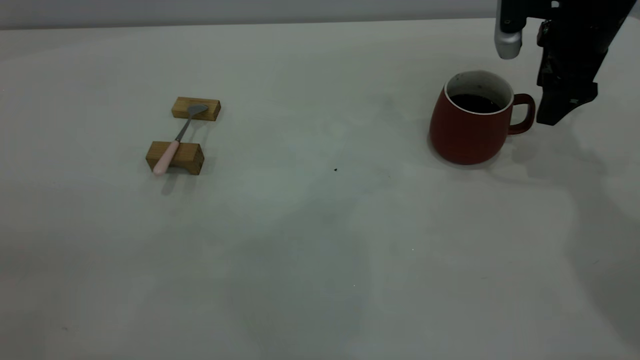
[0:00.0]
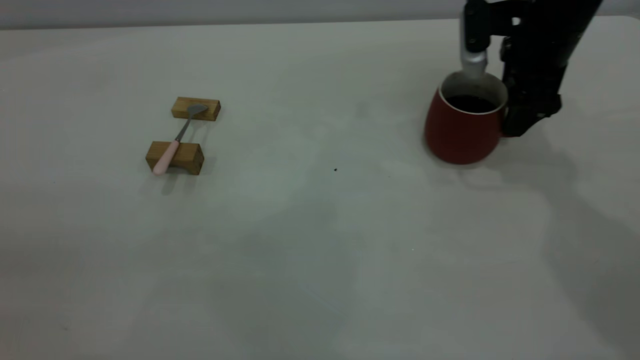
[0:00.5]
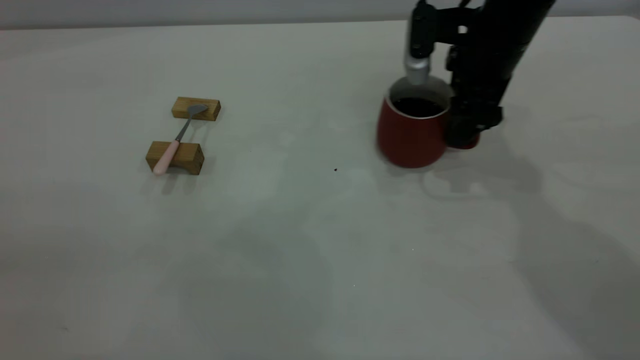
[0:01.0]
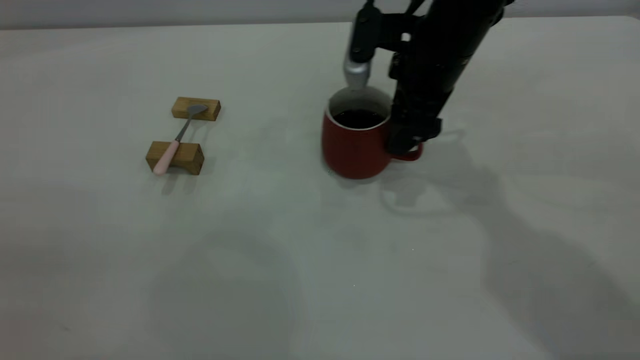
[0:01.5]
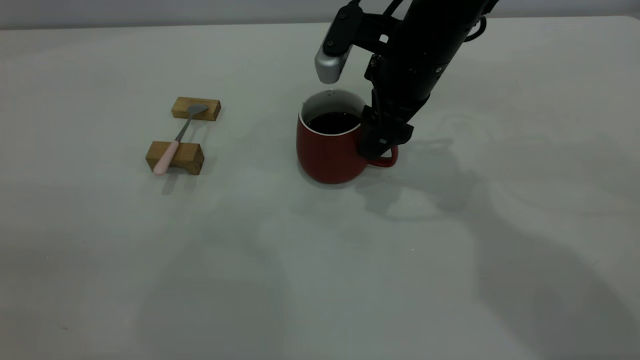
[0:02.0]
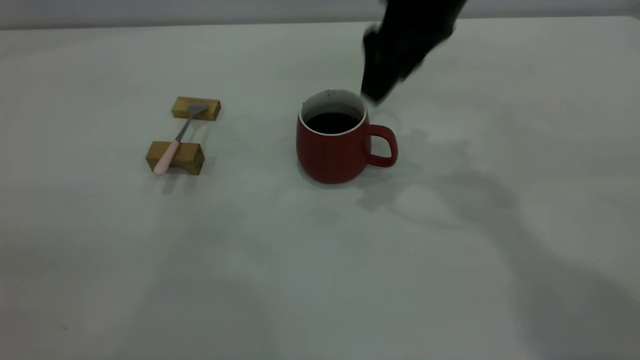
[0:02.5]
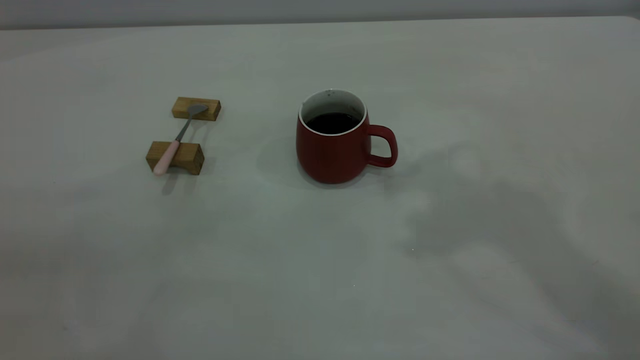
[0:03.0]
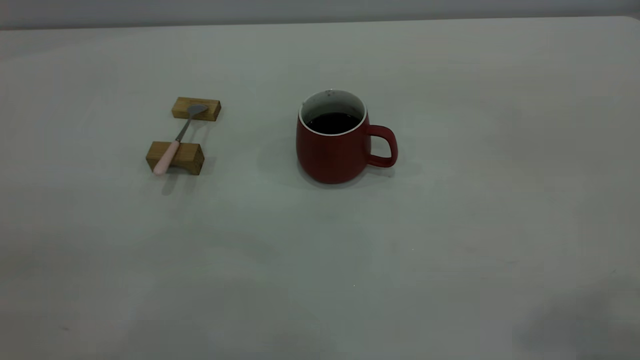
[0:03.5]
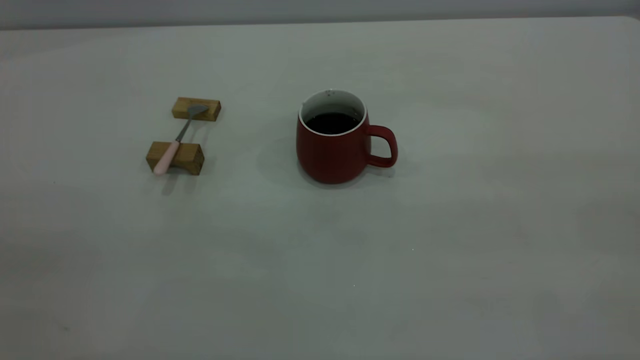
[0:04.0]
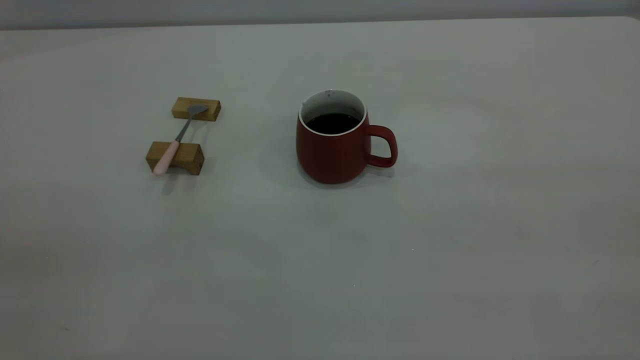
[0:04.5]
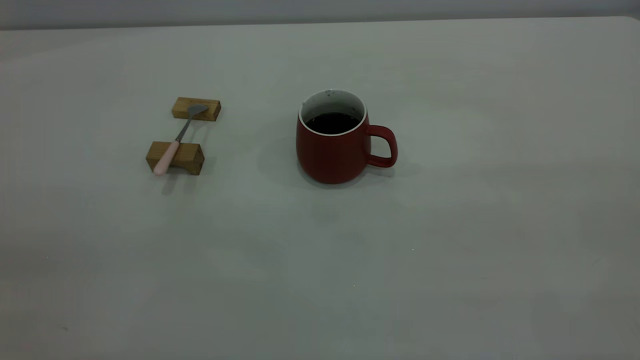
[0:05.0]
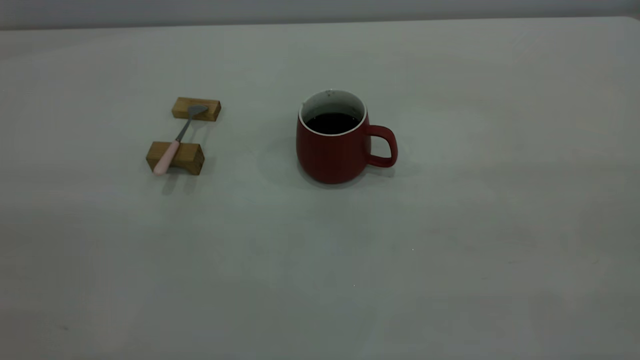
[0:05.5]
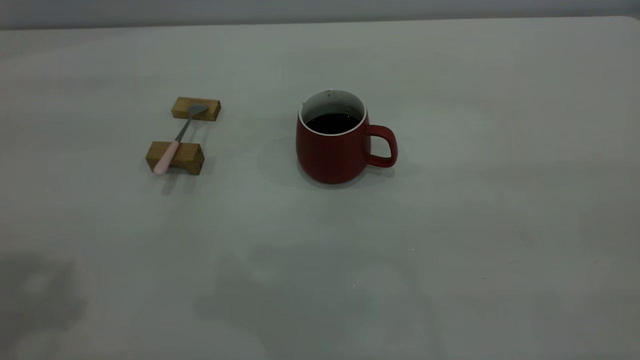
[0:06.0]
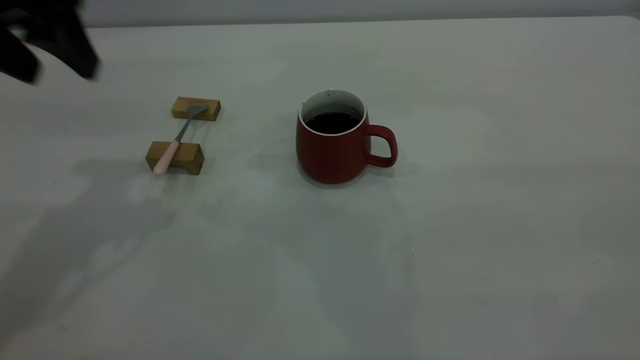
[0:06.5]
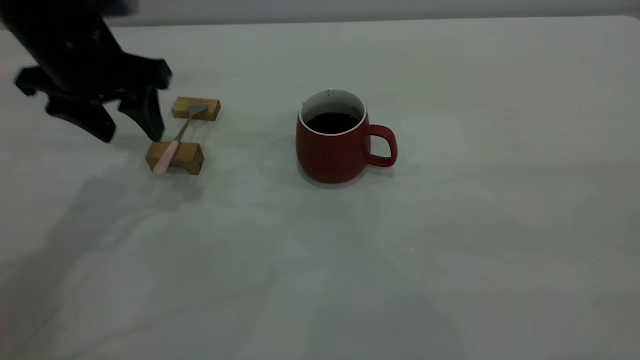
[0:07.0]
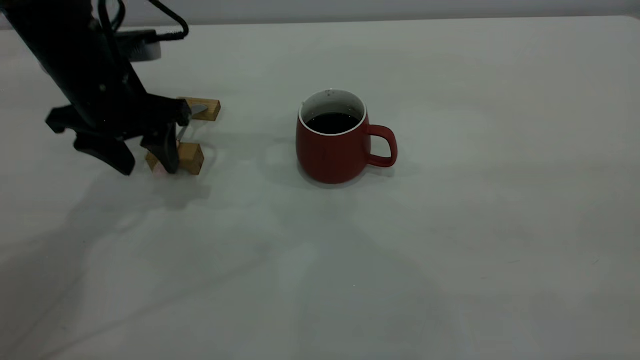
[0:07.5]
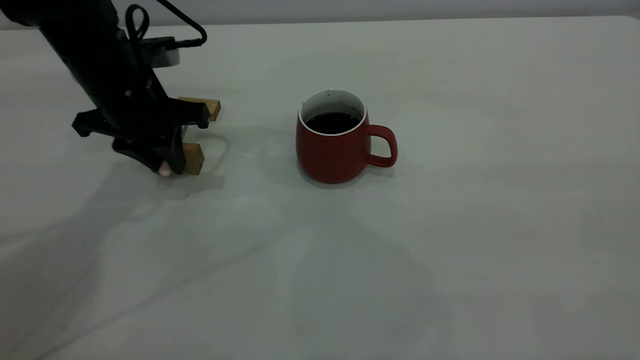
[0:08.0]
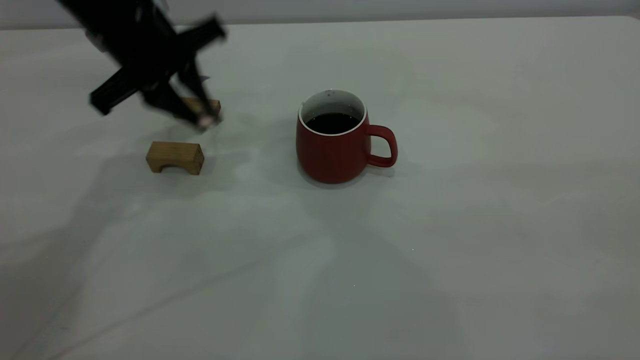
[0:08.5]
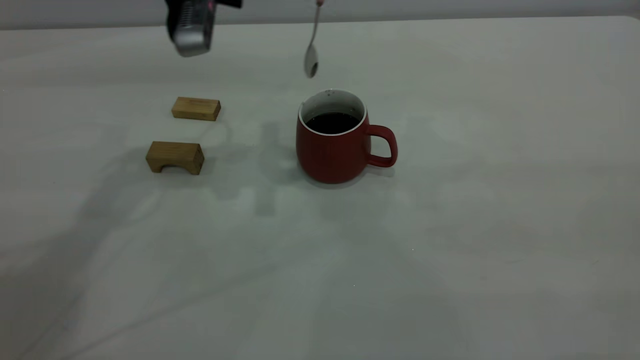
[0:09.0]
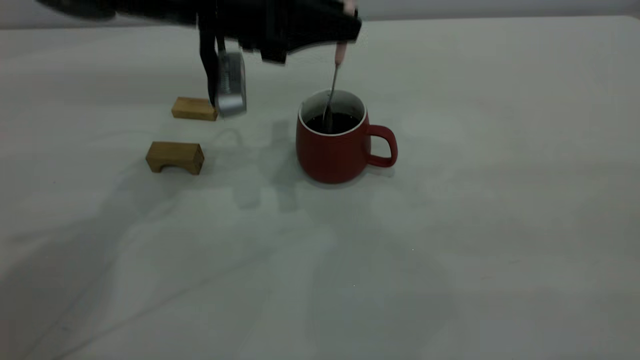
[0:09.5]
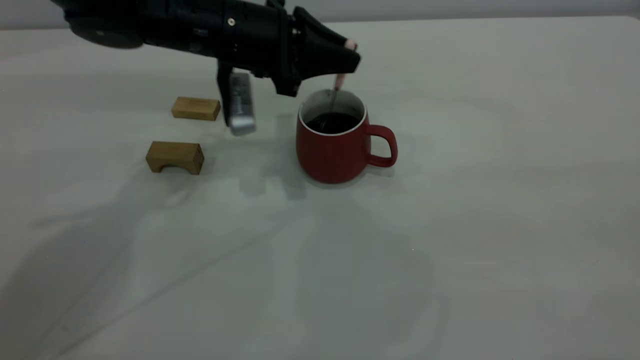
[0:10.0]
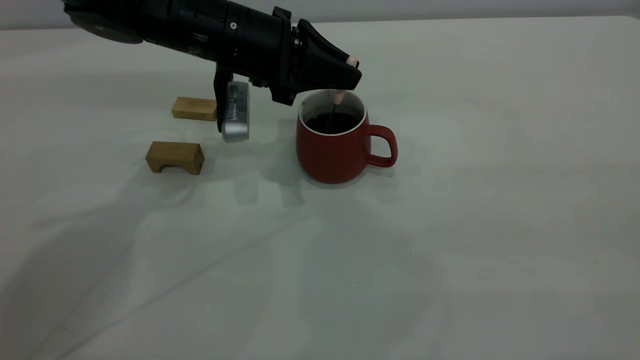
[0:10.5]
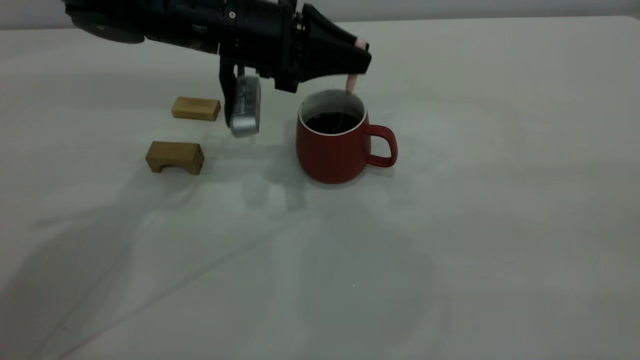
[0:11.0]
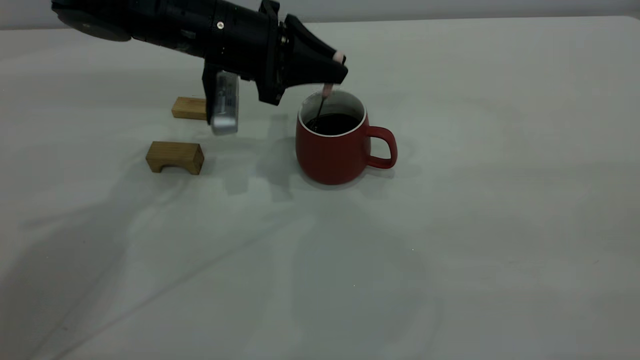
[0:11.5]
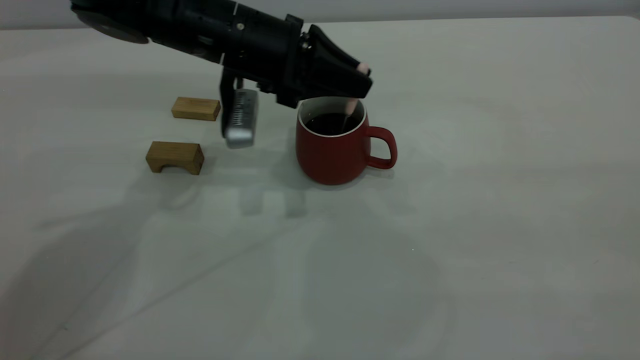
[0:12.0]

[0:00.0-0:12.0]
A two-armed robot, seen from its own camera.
Step, 0:00.0 to 0:02.0: Move the cup with coffee to the center of view.
Step, 0:02.5 to 0:08.0: Pick up the spoon.
0:00.0 to 0:02.0: The right gripper heads to the left, covering about 15 cm.
0:02.0 to 0:04.0: The right gripper heads backward, upward and to the right, covering some 50 cm.
0:06.0 to 0:08.0: The left gripper travels downward and forward by some 30 cm, and closes up.
0:08.0 to 0:10.0: The left gripper moves to the right, roughly 10 cm, and moves approximately 15 cm upward and comes back.
0:10.0 to 0:12.0: The grippers move only a little.

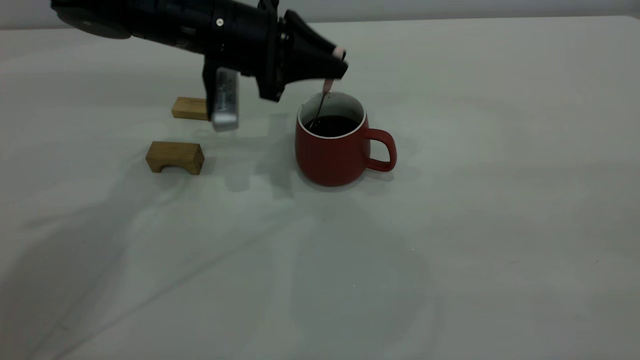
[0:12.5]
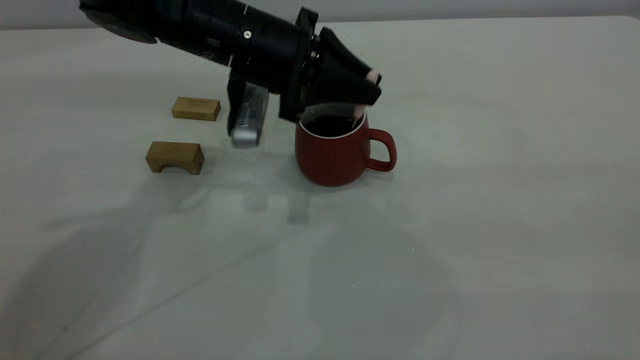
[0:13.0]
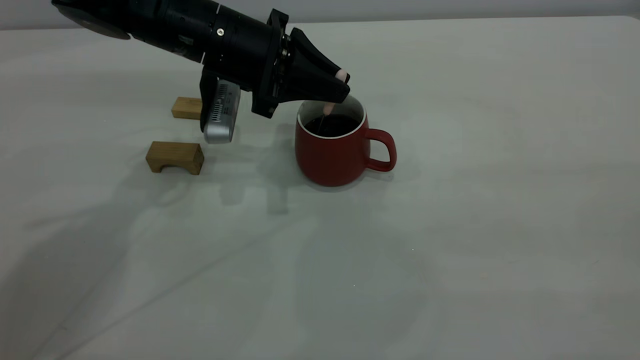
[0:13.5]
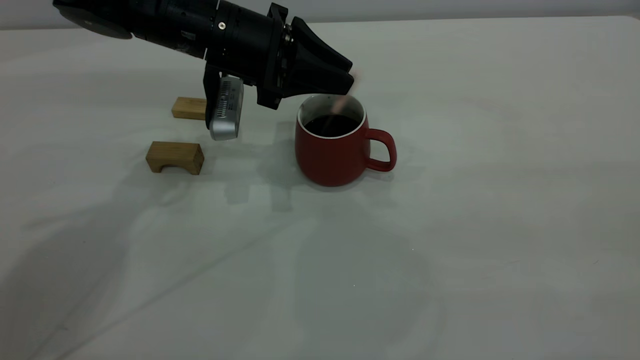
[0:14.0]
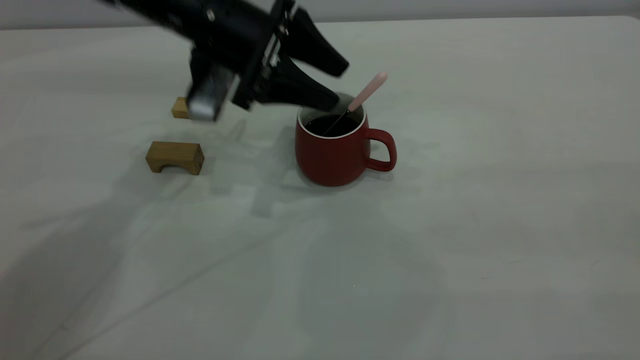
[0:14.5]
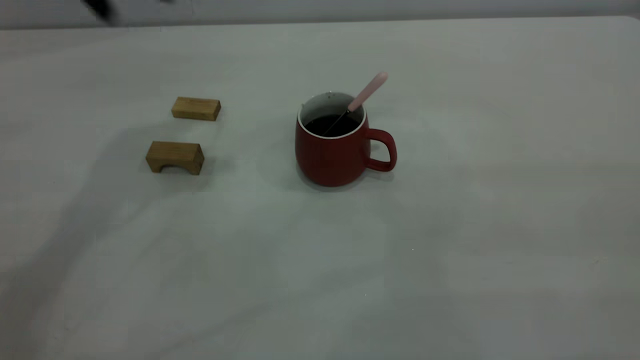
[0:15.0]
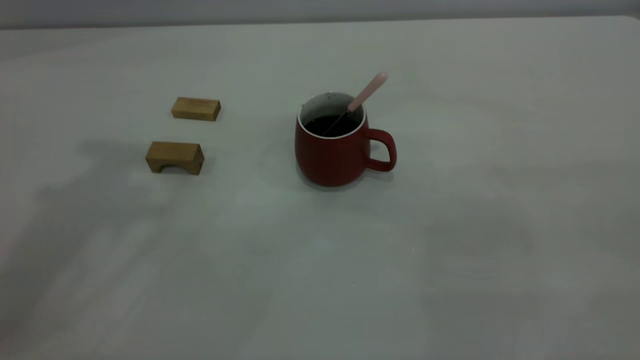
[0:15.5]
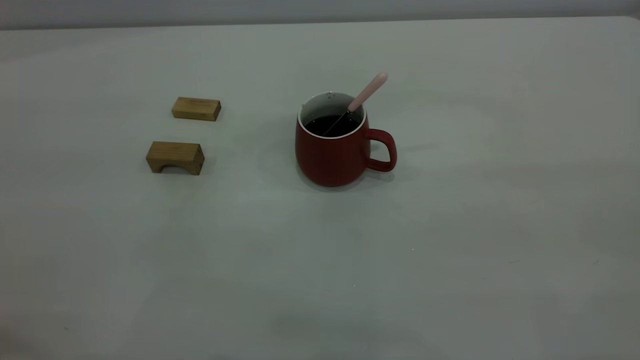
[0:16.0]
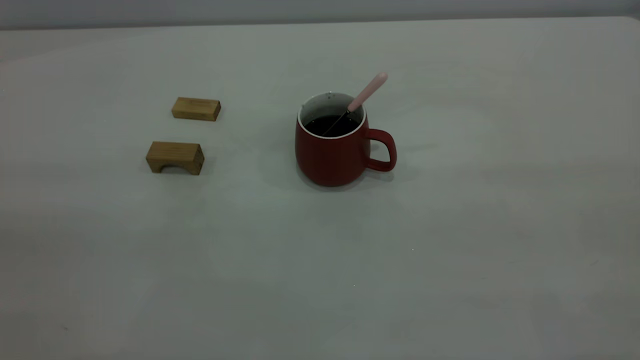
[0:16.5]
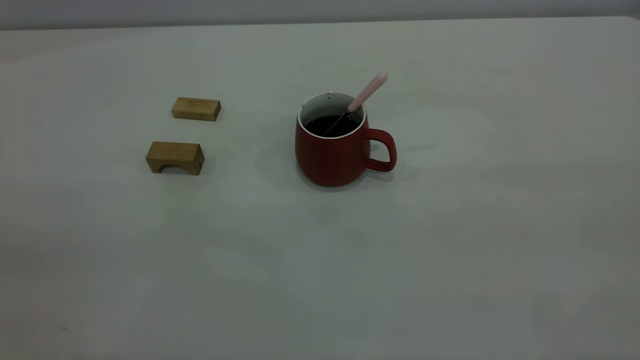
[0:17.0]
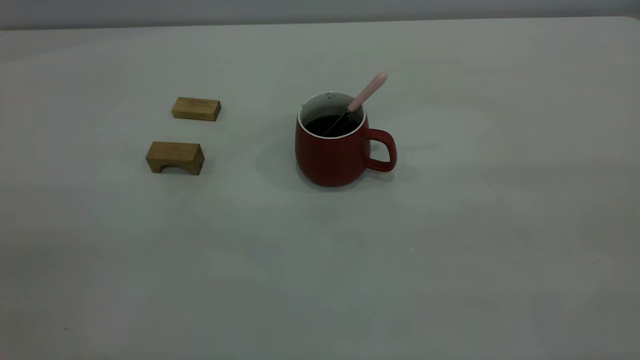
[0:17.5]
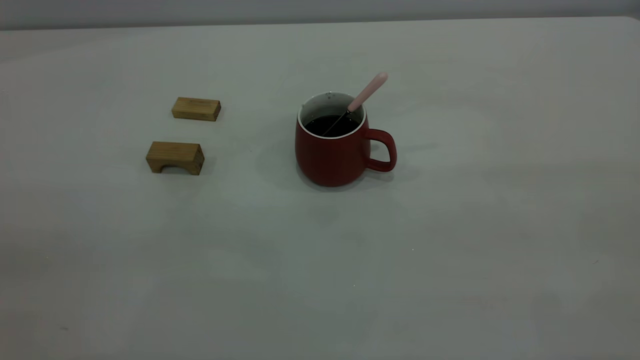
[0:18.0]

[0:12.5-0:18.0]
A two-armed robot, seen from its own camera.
Step, 0:12.5 to 0:14.5: Stir the coffee in the cup.
0:12.5 to 0:14.5: The left gripper opens.
0:14.5 to 0:16.0: The left gripper is displaced backward, upward and to the left by some 40 cm.
